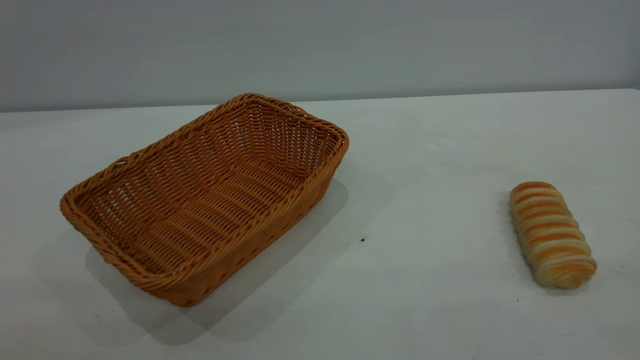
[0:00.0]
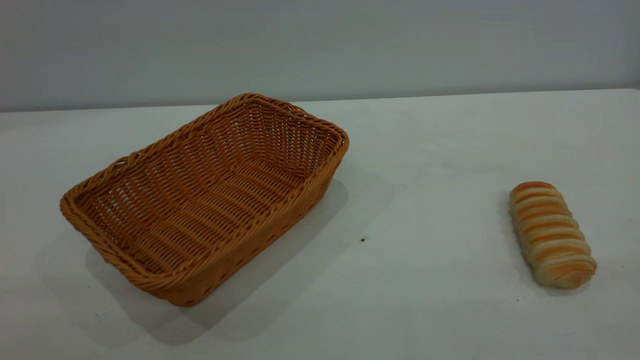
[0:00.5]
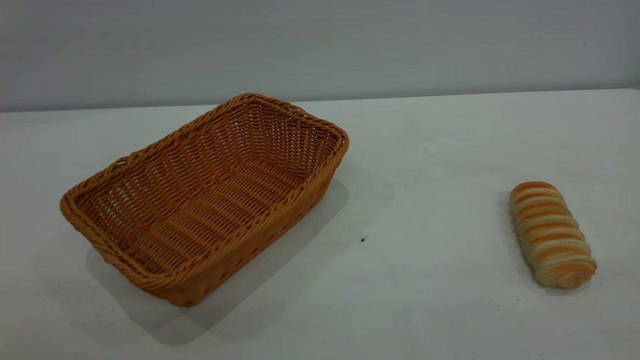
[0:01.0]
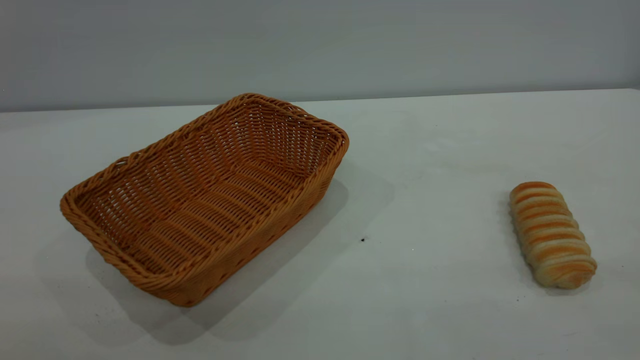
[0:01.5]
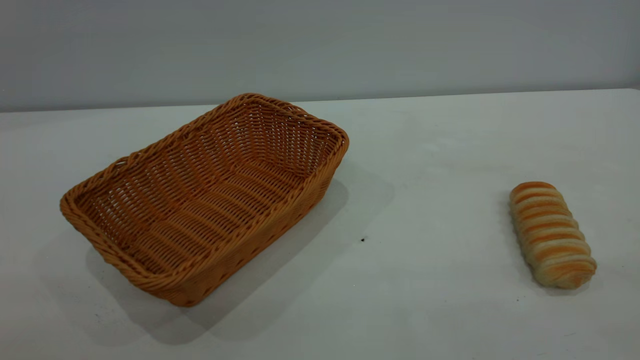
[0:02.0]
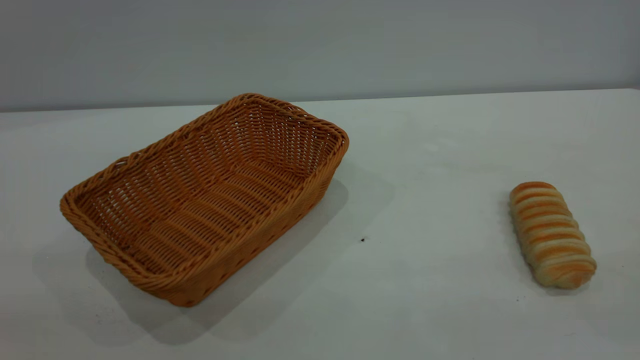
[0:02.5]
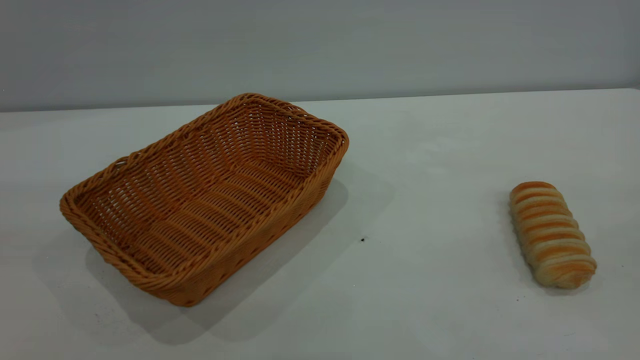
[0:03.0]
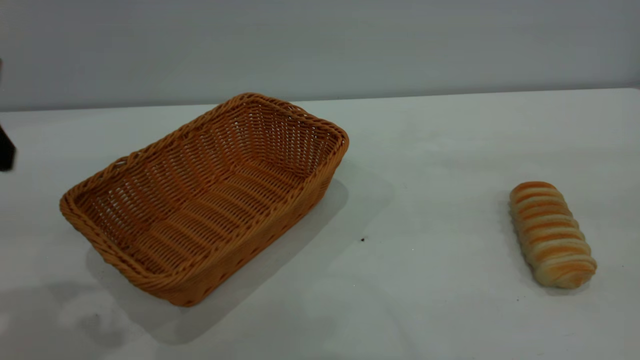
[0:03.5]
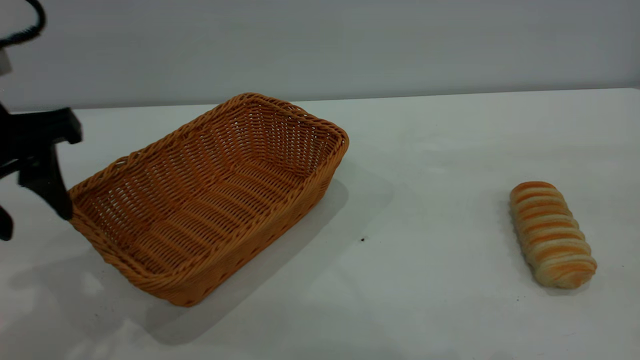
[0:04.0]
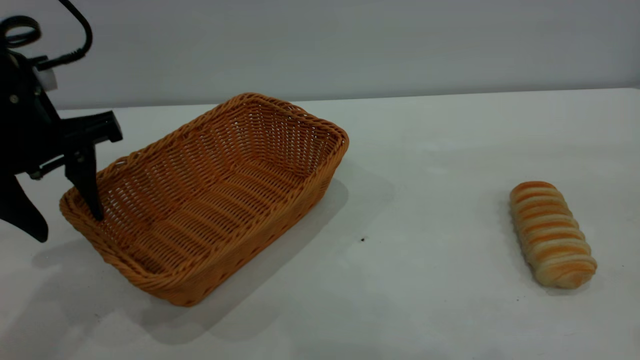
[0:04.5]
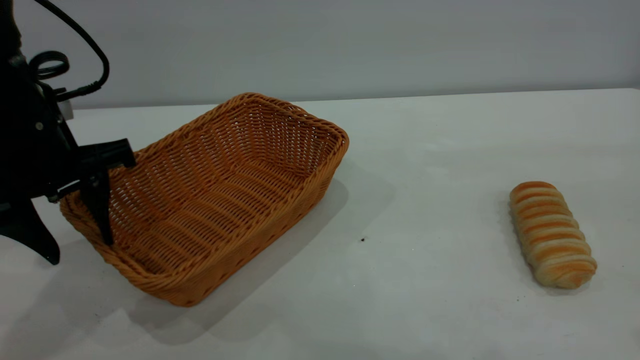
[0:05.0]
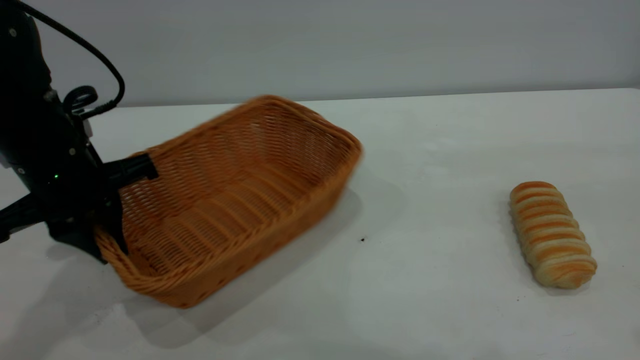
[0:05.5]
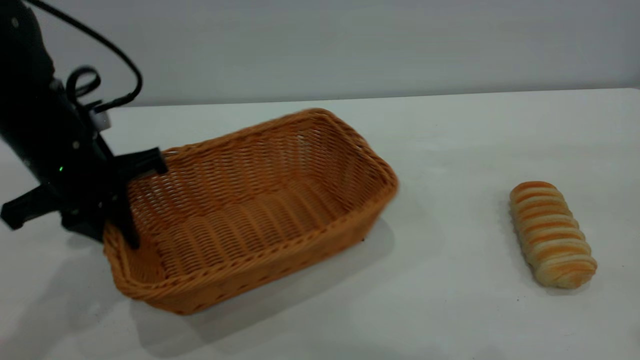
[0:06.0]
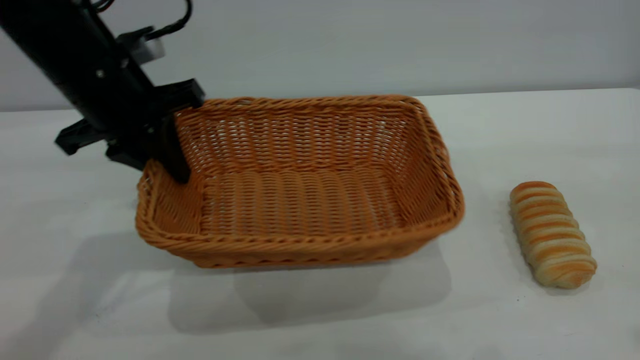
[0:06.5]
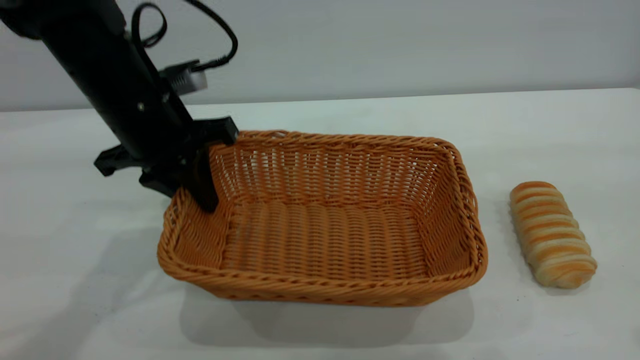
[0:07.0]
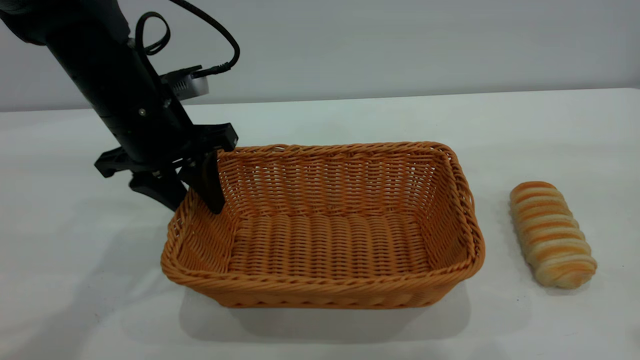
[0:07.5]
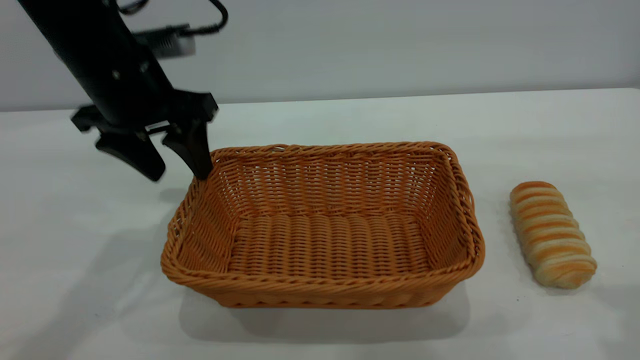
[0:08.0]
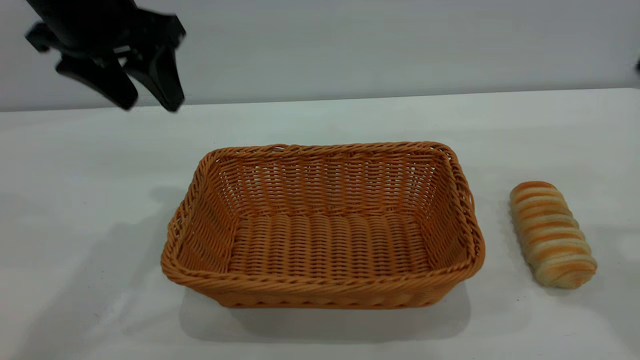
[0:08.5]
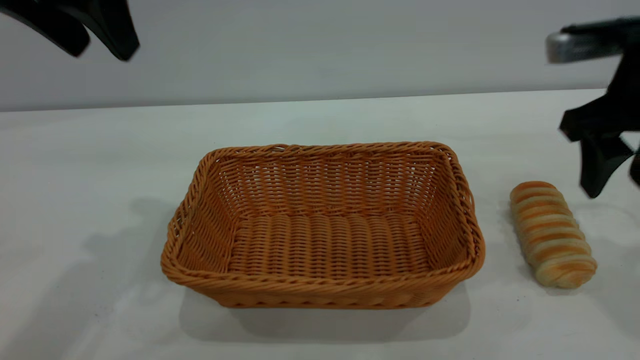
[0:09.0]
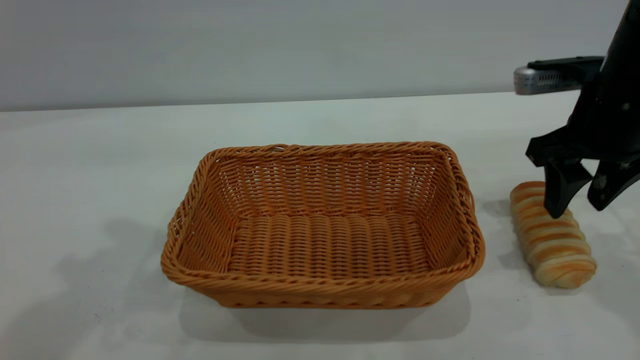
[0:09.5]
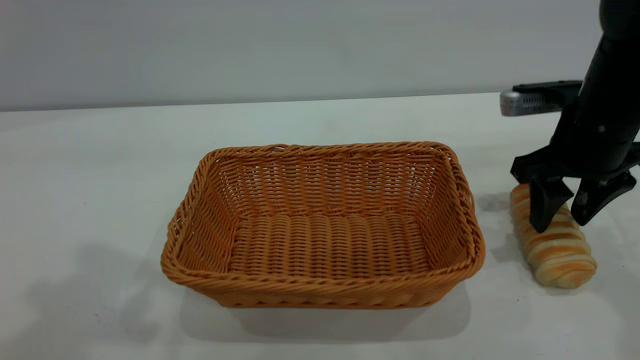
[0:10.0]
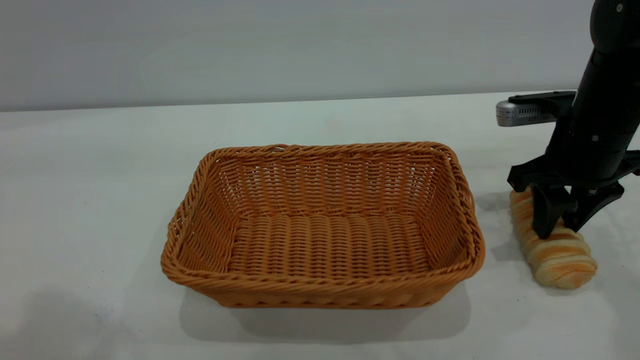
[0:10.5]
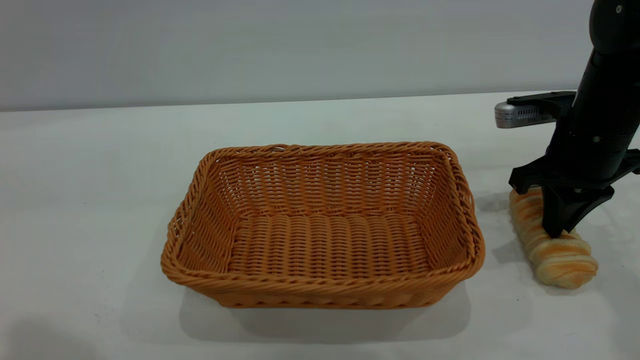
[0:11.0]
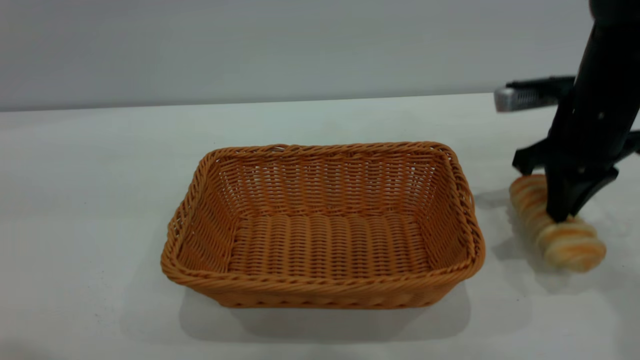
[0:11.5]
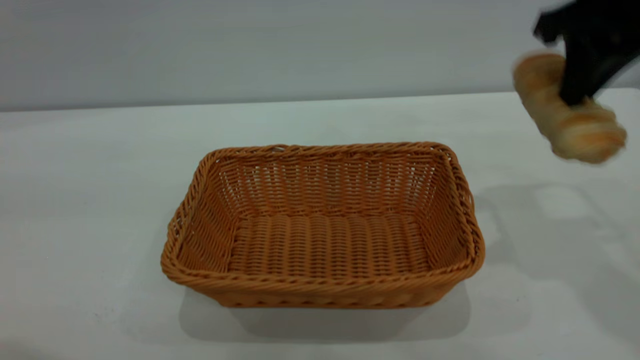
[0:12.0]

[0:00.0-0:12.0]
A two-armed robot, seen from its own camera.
Task of the whole recording: One hand grasps the yellow basket and places it in the middle of the table, while the other hand picks up the long bread and puts it into the yellow basket.
Step, 0:00.0 to 0:08.0: Move the basket to the center of view.
0:02.0 to 0:04.0: The left gripper goes roughly 30 cm forward.
0:04.0 to 0:06.0: The left gripper heads downward and forward, covering about 10 cm, and closes its fingers.
0:06.0 to 0:08.0: The right gripper goes roughly 5 cm forward. Meanwhile the left gripper heads upward, covering some 5 cm, and opens.
0:08.0 to 0:10.0: The left gripper heads upward and backward, covering some 25 cm; the right gripper shifts roughly 25 cm downward and forward.
0:10.0 to 0:12.0: The right gripper heads upward, covering approximately 15 cm, and closes.

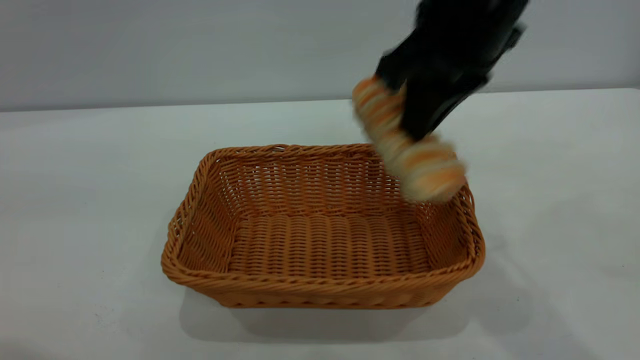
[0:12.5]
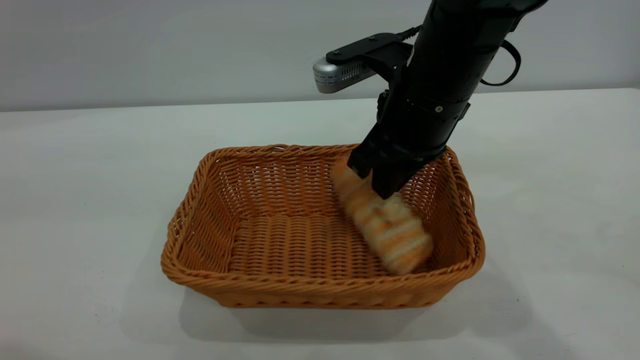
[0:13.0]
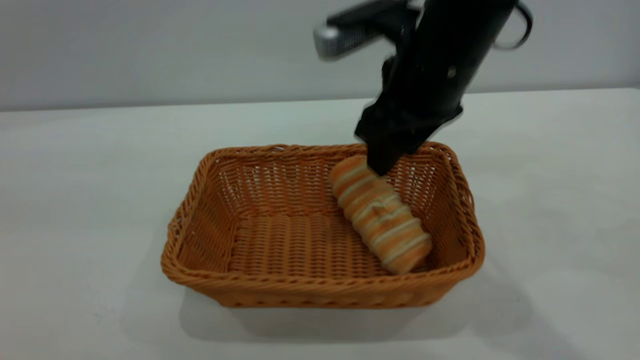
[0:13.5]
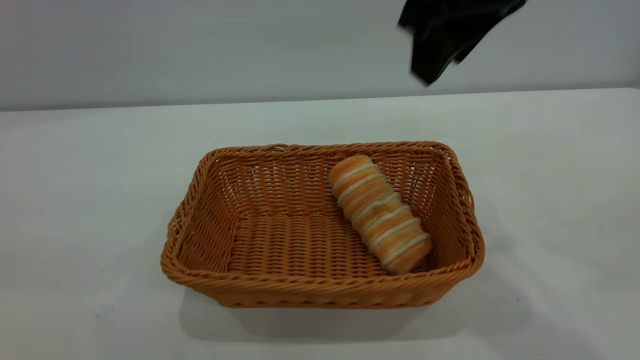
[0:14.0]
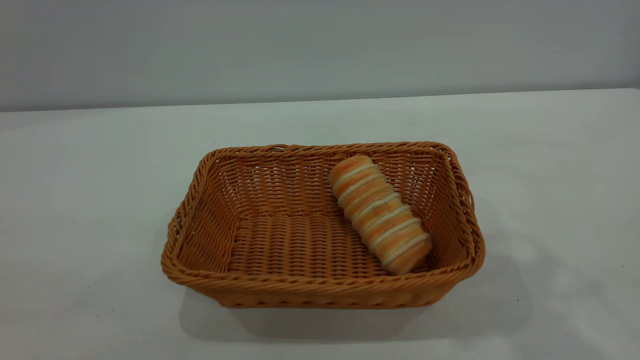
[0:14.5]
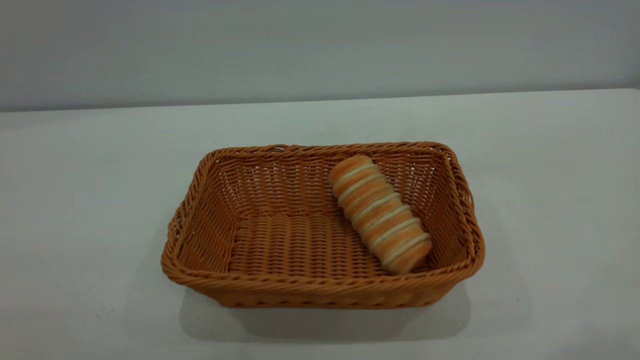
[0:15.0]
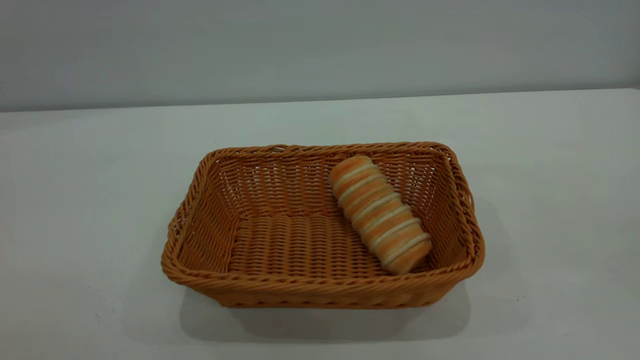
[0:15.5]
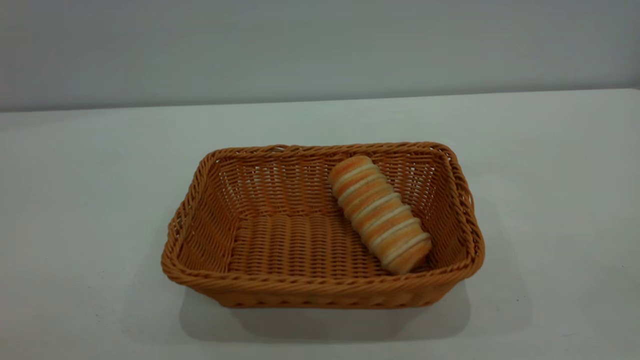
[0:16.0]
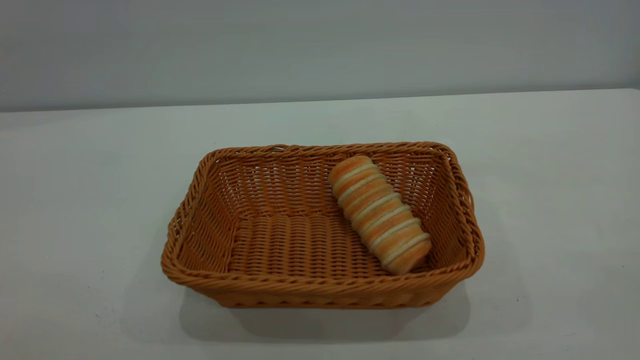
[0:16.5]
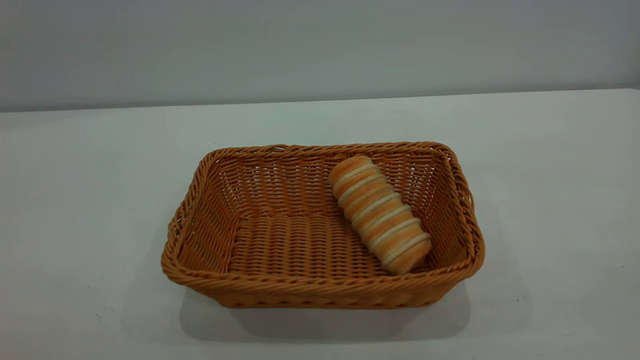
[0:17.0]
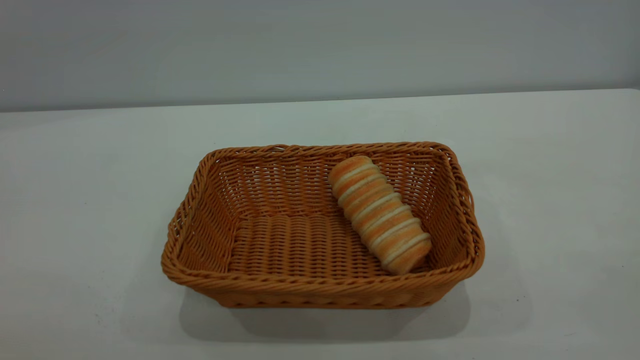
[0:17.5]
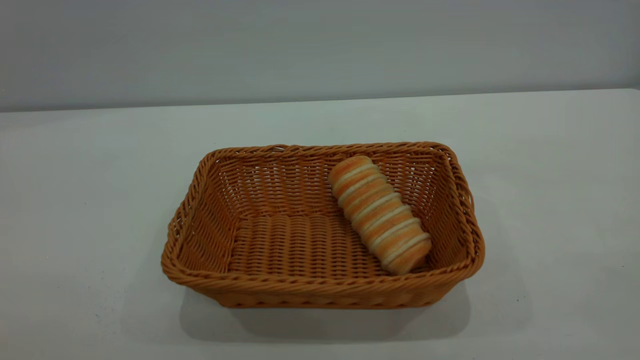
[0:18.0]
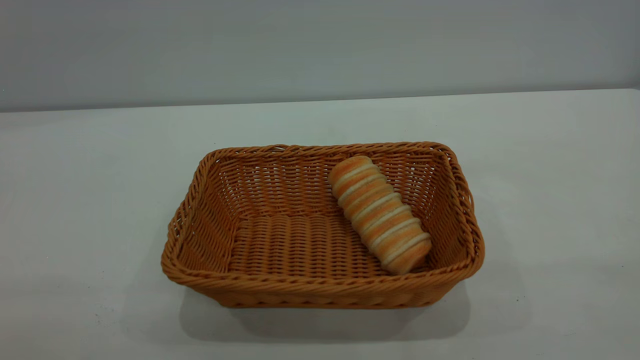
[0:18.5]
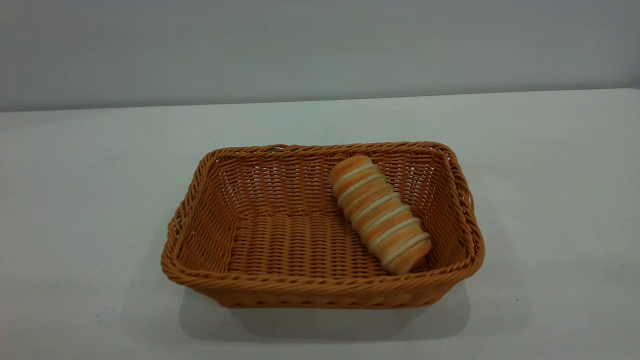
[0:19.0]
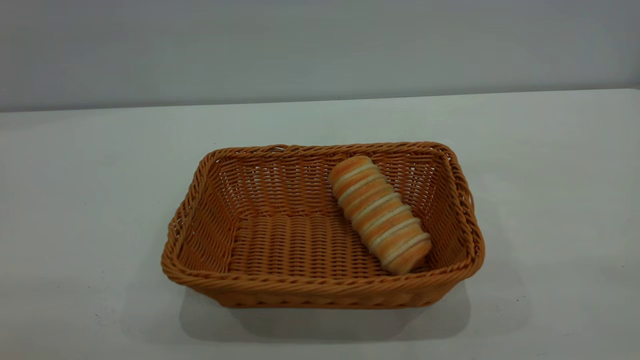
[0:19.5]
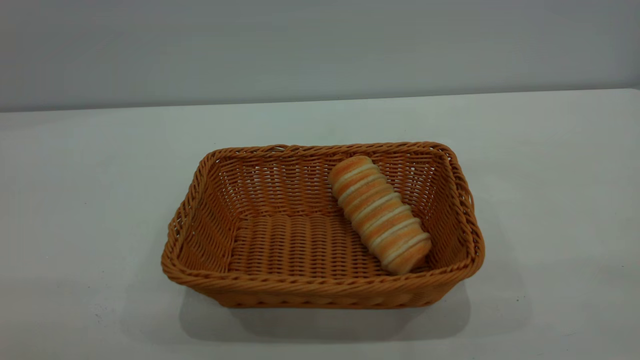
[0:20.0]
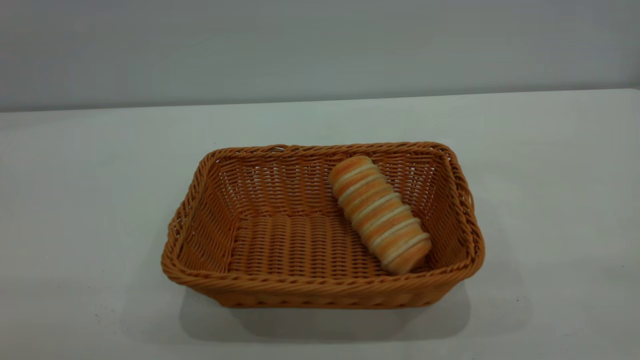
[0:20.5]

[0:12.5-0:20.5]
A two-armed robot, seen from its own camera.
Task of the whole recording: One hand grasps the yellow basket and places it in the middle of the table, while the other hand picks up the long bread and puts it into the yellow basket.
Step, 0:12.5 to 0:13.5: place the bread into the basket.
0:12.5 to 0:14.5: The left gripper heads backward, covering roughly 10 cm. The right gripper shifts roughly 20 cm upward, backward and to the right, and opens its fingers.
